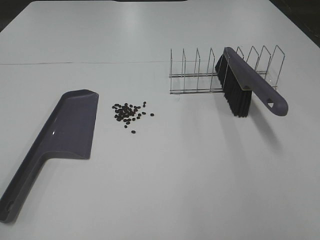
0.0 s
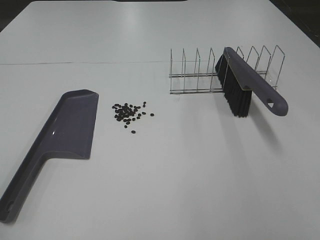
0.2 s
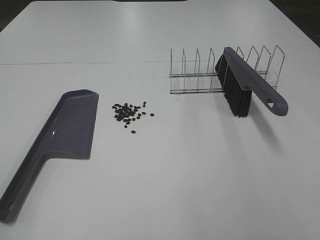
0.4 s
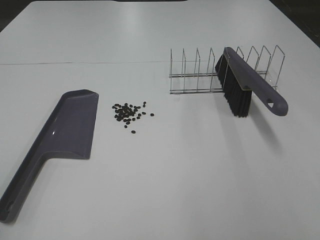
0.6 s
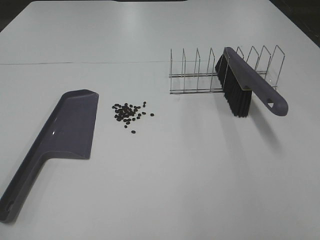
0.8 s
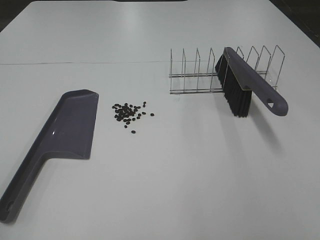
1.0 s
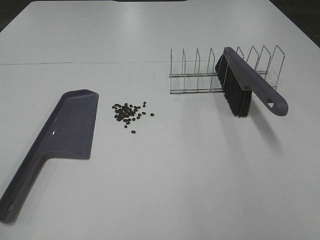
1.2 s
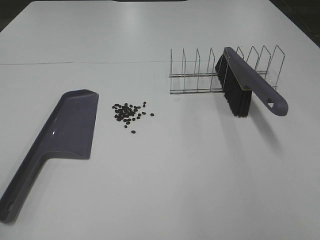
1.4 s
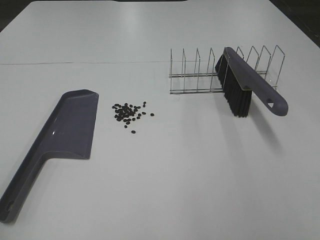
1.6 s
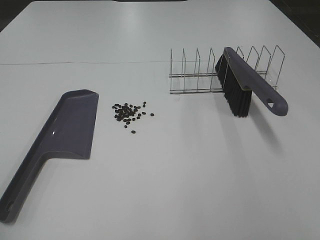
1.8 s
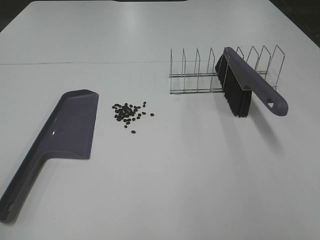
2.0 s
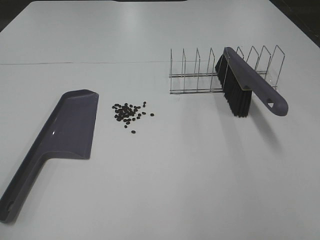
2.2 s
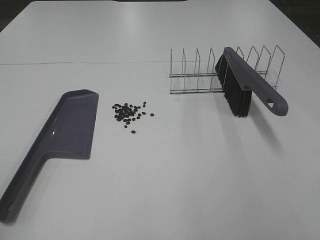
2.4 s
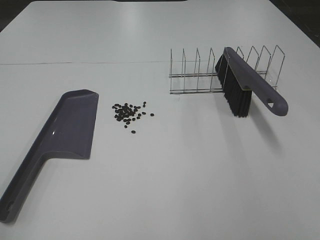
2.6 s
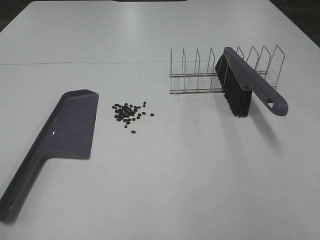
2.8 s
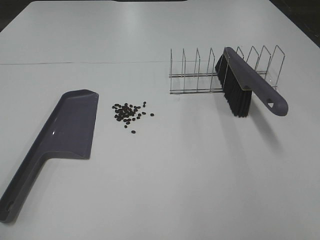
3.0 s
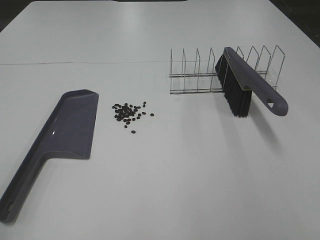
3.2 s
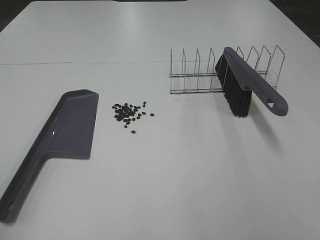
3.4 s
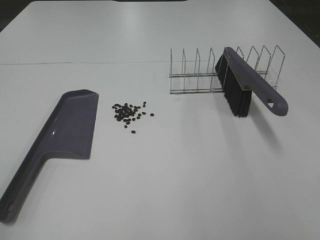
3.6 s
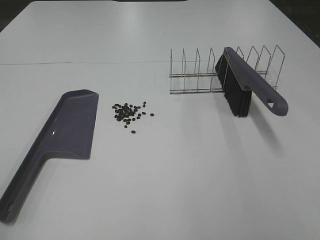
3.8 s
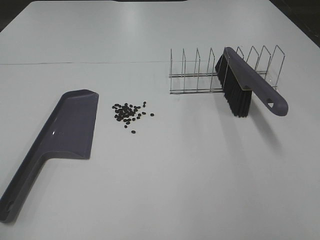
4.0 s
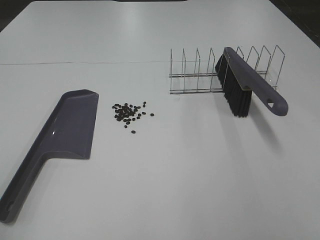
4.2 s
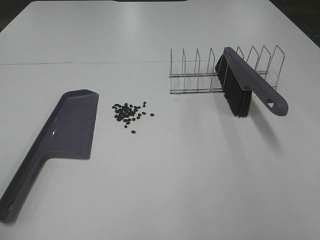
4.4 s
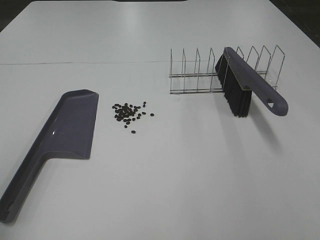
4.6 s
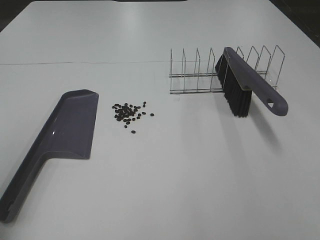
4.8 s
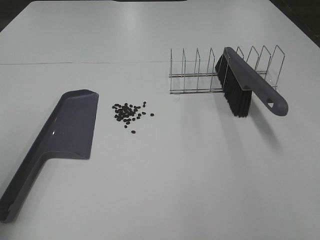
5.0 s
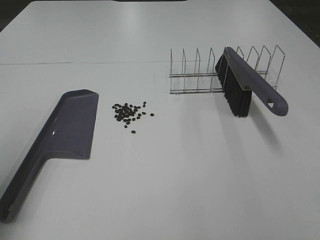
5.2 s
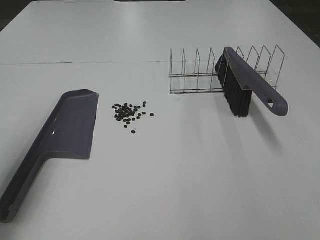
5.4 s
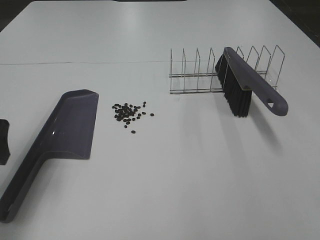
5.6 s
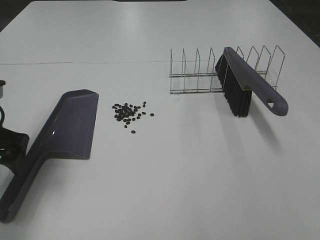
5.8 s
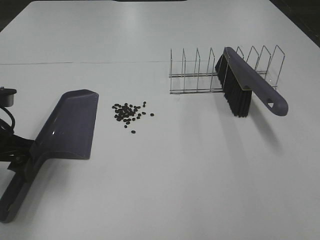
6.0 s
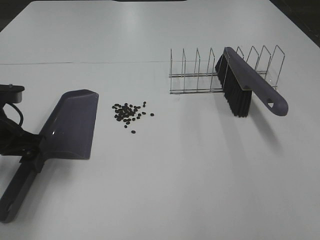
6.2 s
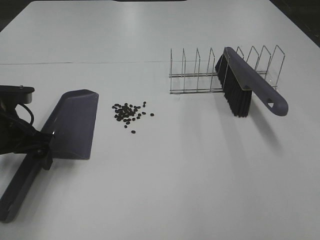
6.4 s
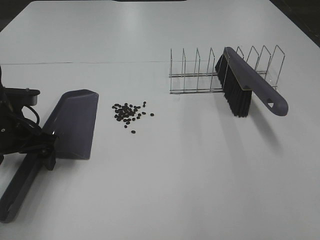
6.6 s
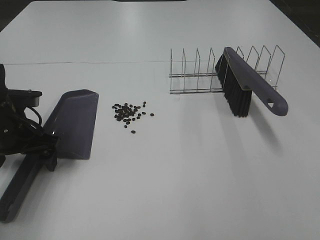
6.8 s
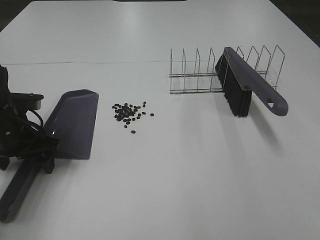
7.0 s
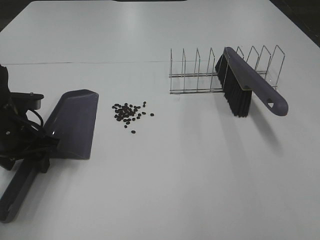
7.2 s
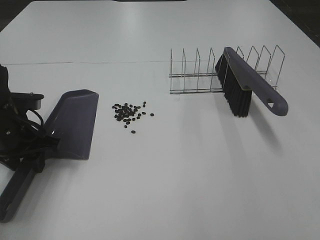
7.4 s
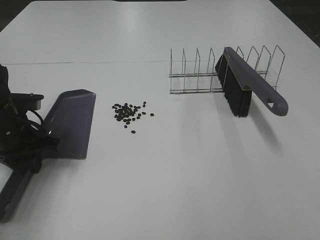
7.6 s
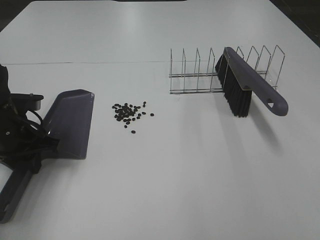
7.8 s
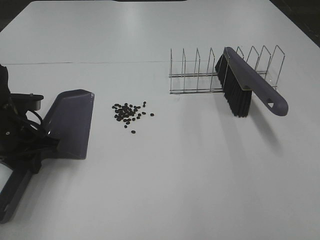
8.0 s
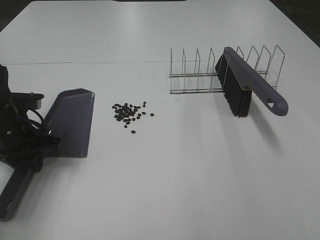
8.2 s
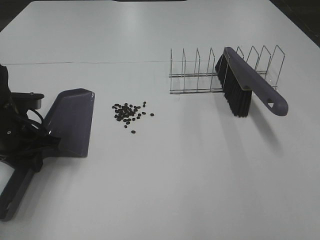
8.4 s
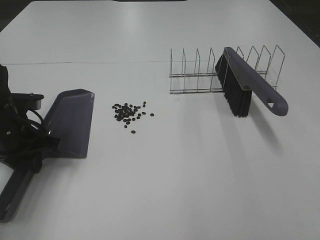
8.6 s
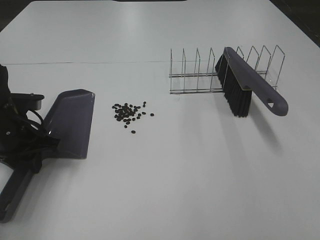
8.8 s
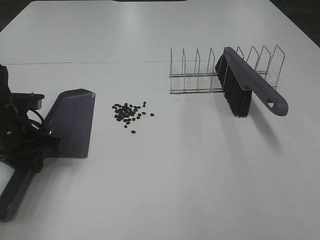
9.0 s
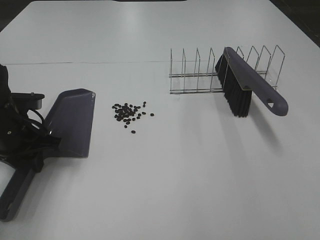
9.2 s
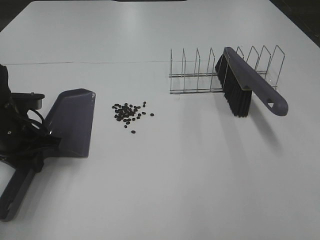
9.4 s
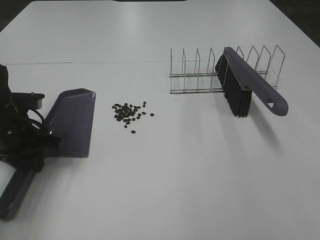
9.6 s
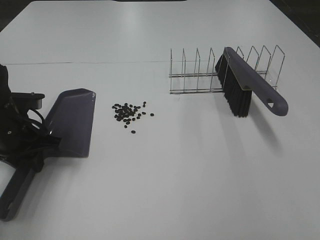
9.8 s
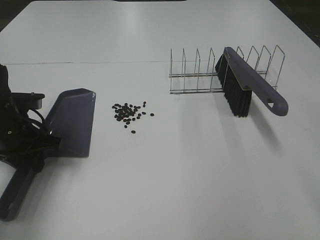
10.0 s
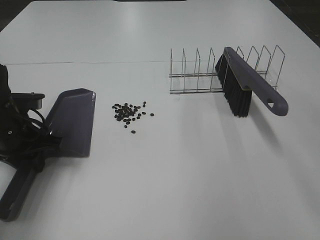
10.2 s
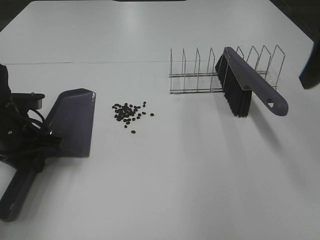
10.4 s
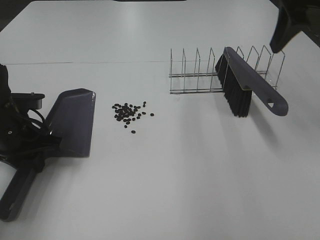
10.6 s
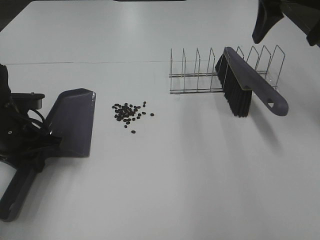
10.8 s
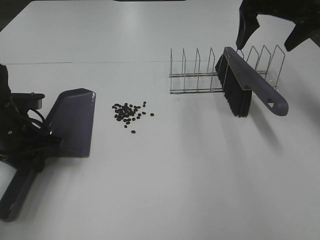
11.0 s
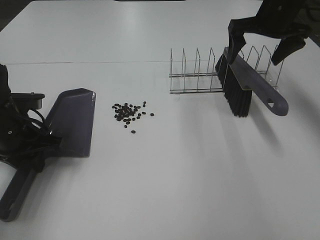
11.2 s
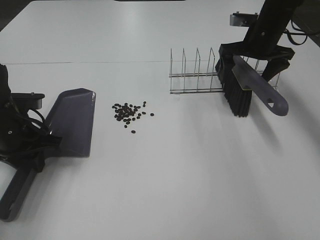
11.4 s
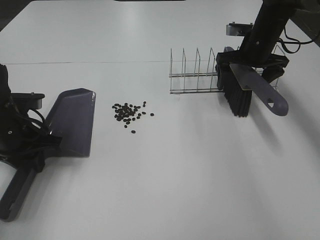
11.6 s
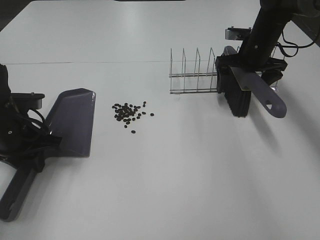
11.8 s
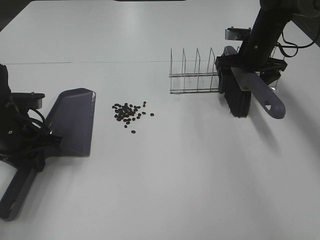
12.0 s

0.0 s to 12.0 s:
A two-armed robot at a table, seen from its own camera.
Task of the whole recording: Sweep Coffee Bean.
Step, 0.0 to 7.6 s: Left hand: grab the dustpan.
0.0 to 3.0 s: Both grippers stay about where they are.
4.4 to 6.0 s: The left gripper heads forward and downward, covering about 30 cm.
6.0 to 7.6 s: The left gripper heads downward, covering roughly 5 cm, and closes up.
7.6 to 9.0 s: Neither gripper changes place.
9.0 to 10.4 s: The right gripper heads forward, covering about 25 cm, and opens its fingers.
10.4 to 12.0 s: The right gripper shifts approximately 30 cm forward and downward.

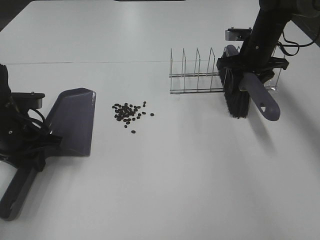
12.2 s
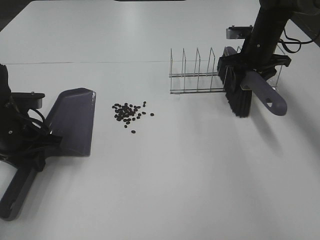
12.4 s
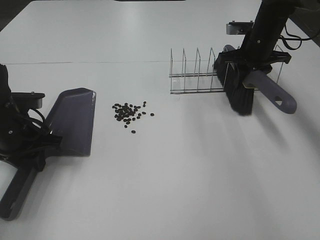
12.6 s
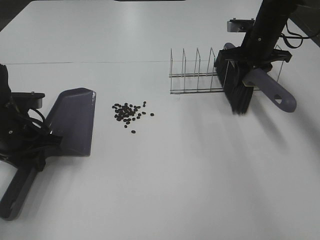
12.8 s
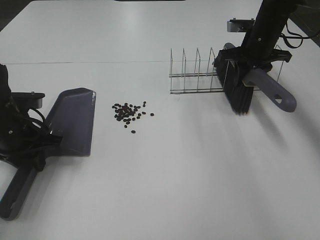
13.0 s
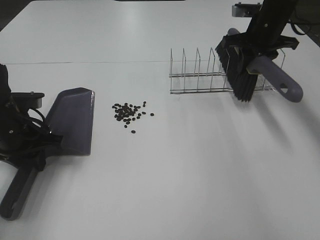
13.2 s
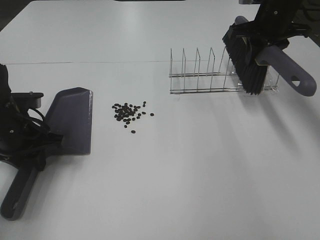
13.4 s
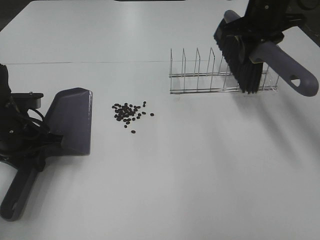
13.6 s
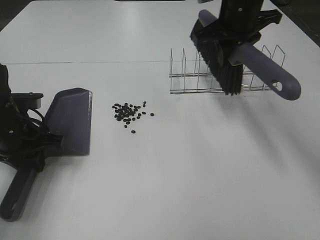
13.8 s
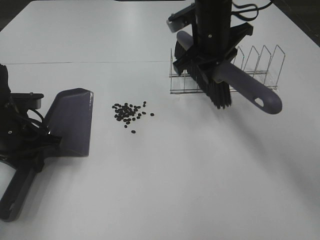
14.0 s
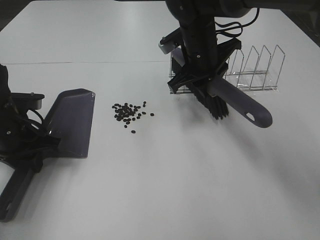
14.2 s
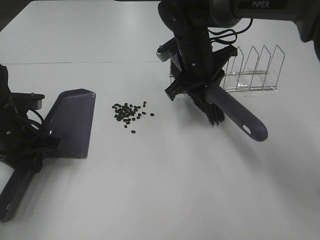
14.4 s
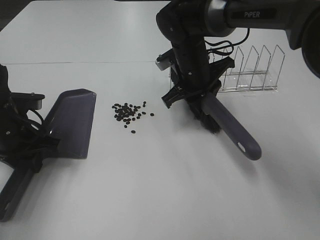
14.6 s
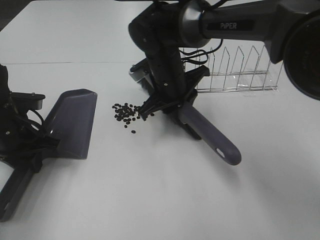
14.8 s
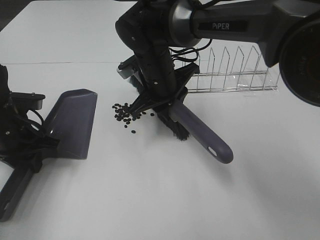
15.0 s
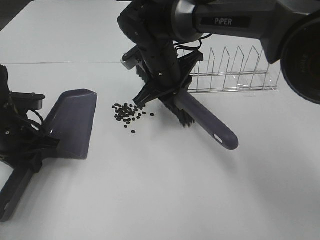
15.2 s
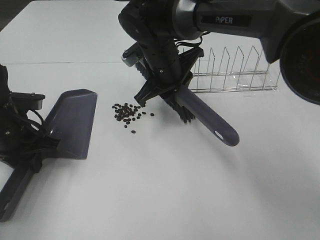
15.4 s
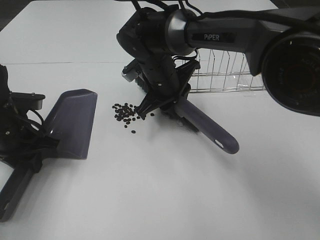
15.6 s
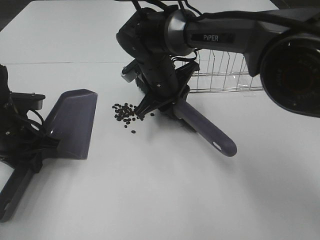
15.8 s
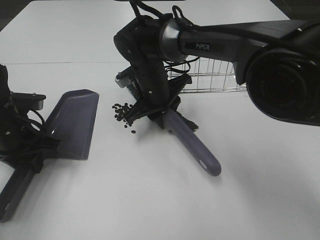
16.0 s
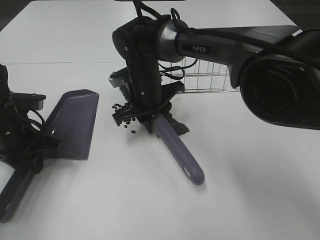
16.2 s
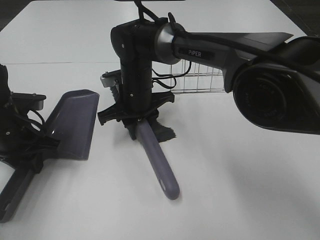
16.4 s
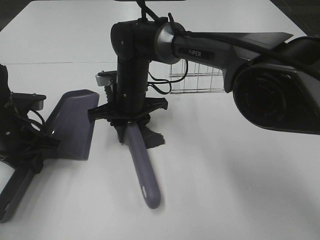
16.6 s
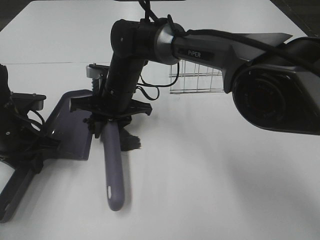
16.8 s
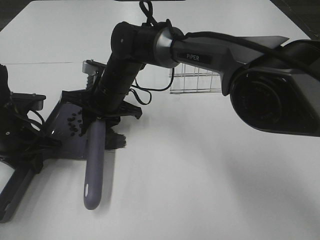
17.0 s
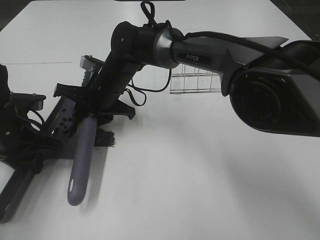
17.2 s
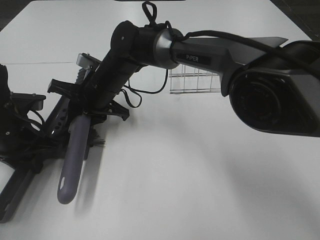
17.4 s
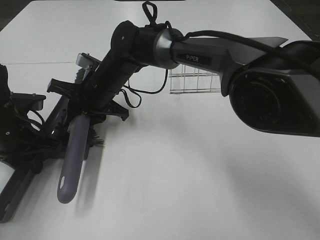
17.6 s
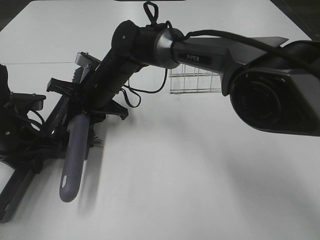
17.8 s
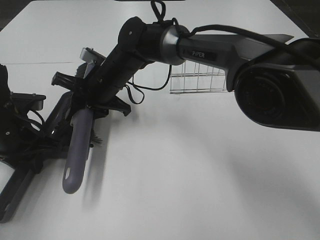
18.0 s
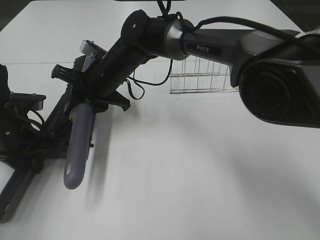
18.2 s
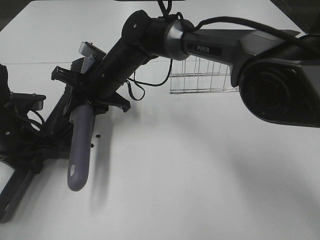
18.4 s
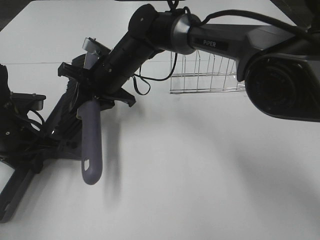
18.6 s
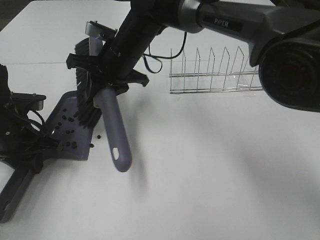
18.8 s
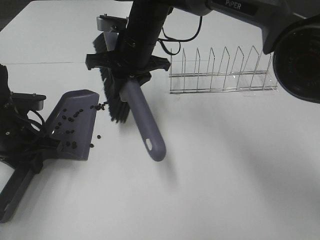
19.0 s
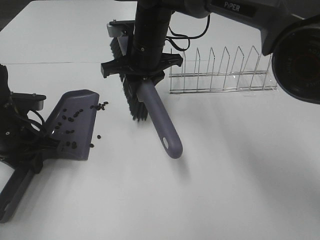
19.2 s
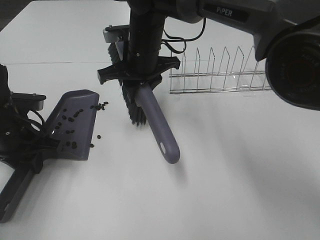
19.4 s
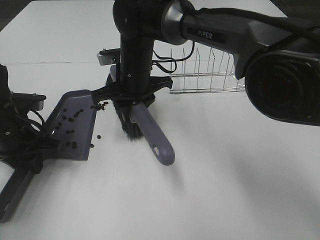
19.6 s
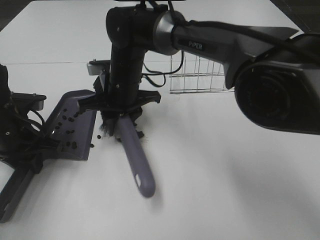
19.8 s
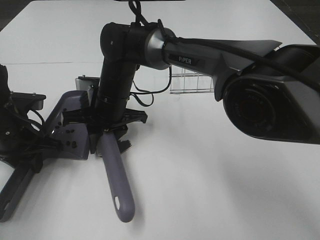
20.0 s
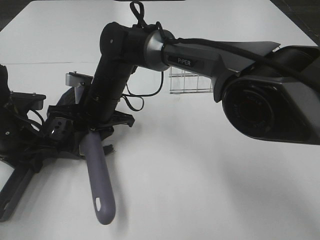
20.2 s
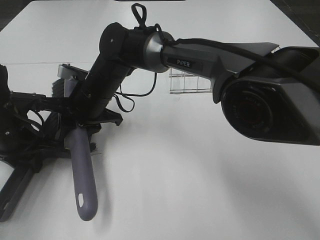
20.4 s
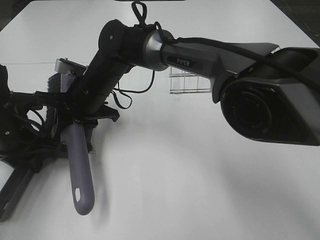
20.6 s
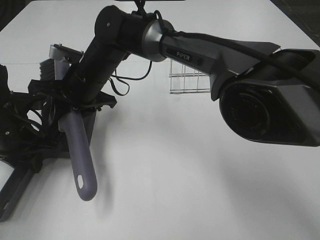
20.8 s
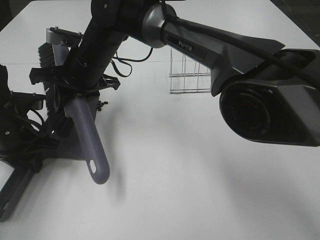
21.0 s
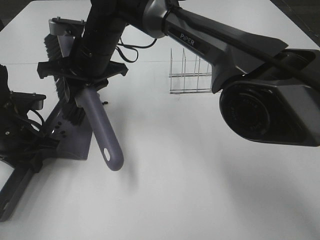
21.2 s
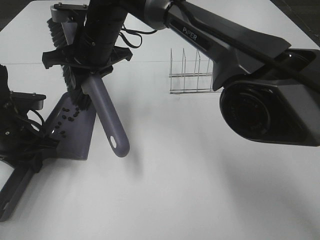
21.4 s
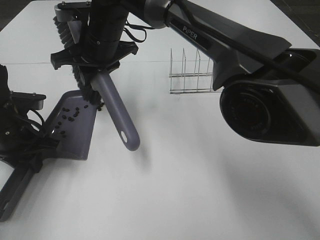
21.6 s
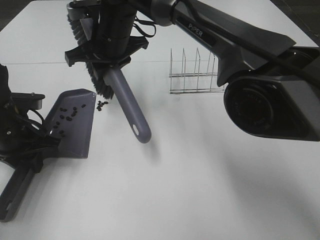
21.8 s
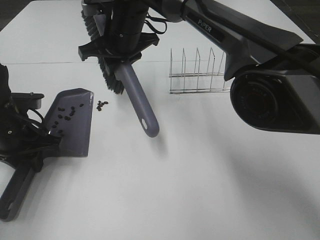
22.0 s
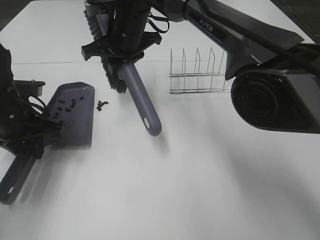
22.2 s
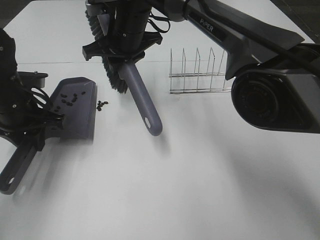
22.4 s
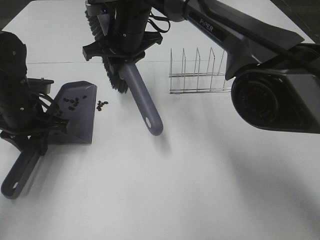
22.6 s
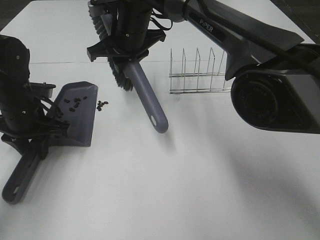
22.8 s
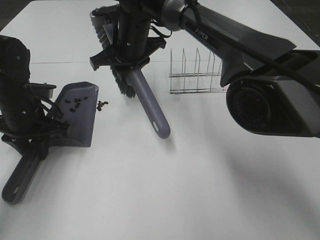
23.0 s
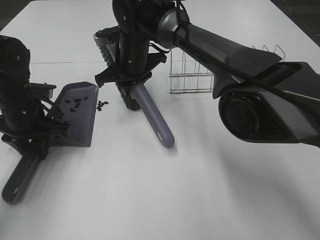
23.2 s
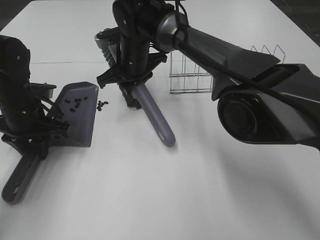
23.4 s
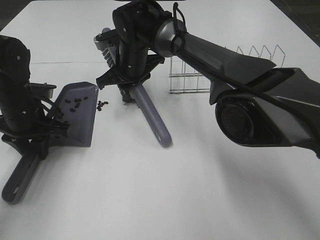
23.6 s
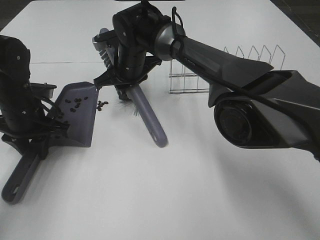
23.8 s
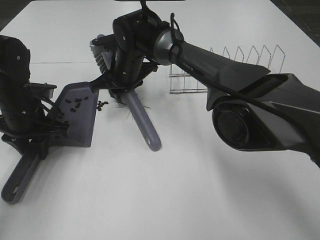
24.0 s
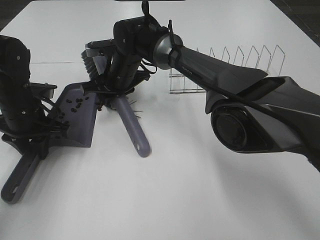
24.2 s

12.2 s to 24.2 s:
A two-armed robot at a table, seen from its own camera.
Task of the whole recording: Sweep Coffee Bean.
12.2 to 13.8 s: The right gripper travels upward, to the left and backward by about 15 cm.
13.8 to 15.2 s: The right gripper is displaced to the left and downward by approximately 15 cm.
15.2 to 16.6 s: The right gripper is displaced to the left and downward by roughly 10 cm.
19.8 to 21.2 s: The right gripper shifts some 5 cm upward.
21.2 to 22.6 s: The right gripper goes approximately 5 cm to the right.
22.6 to 24.2 s: The right gripper goes approximately 10 cm downward.
